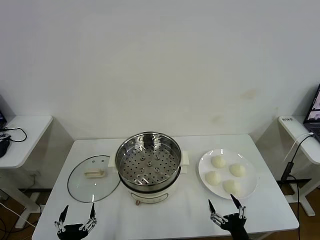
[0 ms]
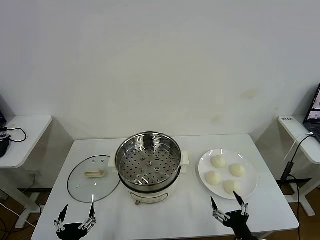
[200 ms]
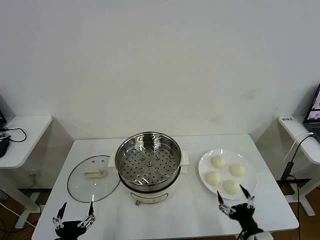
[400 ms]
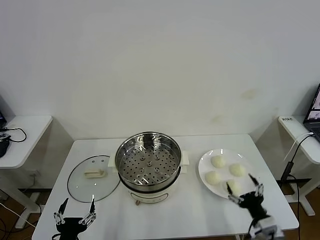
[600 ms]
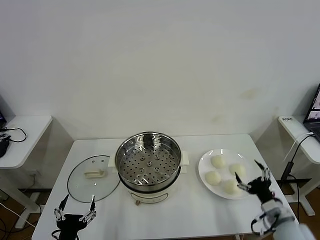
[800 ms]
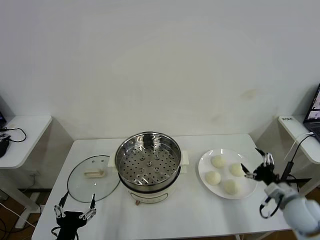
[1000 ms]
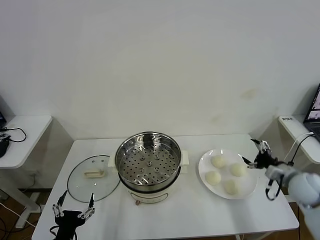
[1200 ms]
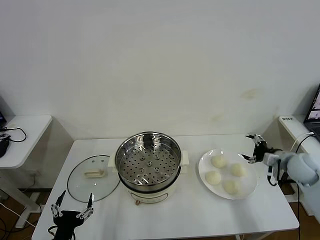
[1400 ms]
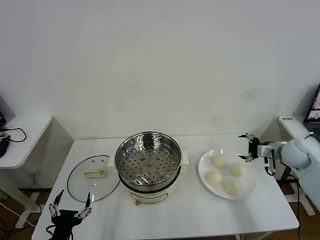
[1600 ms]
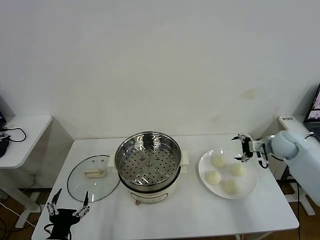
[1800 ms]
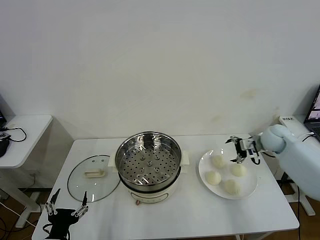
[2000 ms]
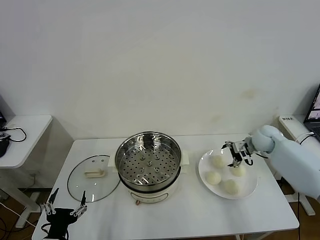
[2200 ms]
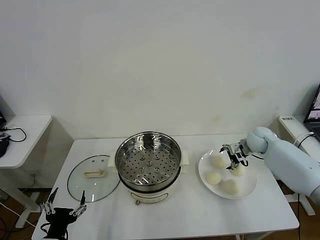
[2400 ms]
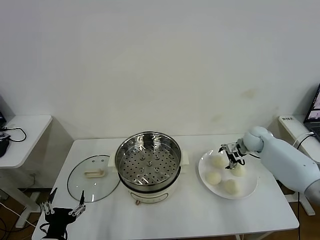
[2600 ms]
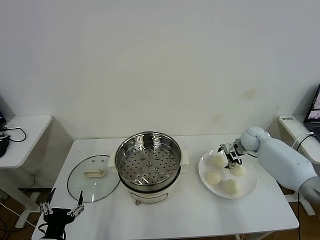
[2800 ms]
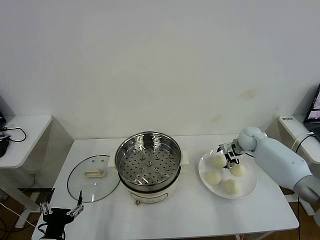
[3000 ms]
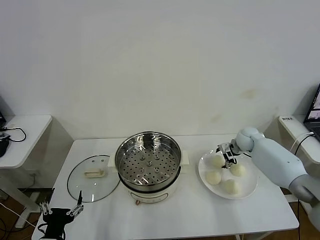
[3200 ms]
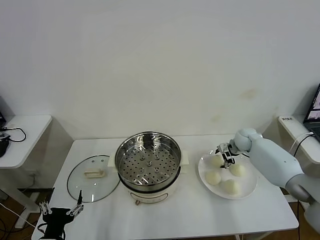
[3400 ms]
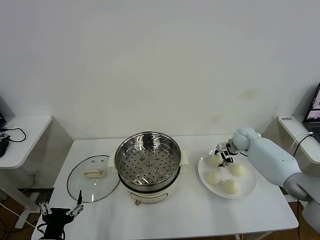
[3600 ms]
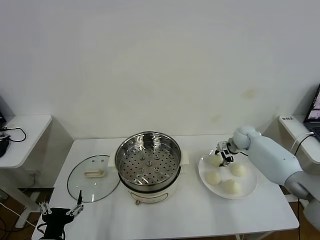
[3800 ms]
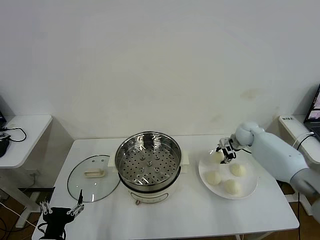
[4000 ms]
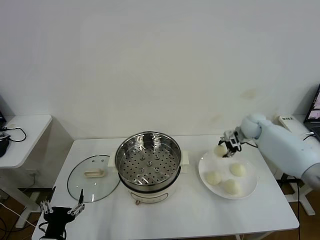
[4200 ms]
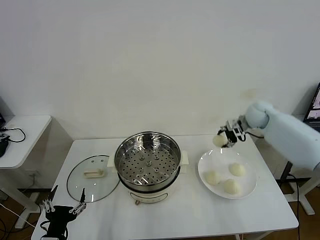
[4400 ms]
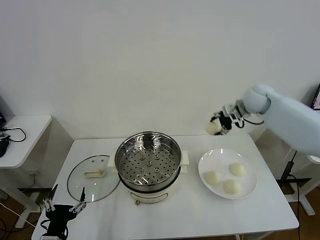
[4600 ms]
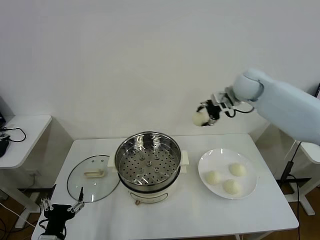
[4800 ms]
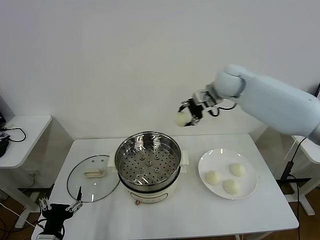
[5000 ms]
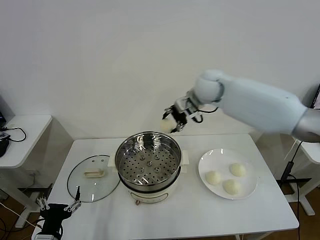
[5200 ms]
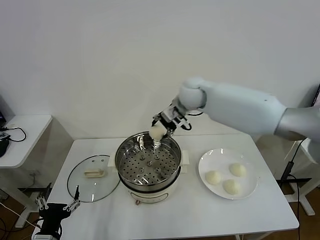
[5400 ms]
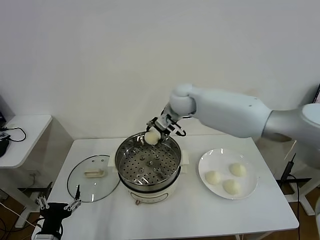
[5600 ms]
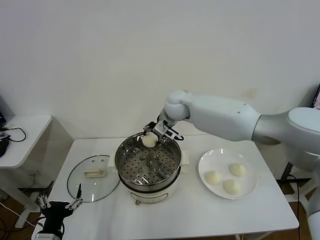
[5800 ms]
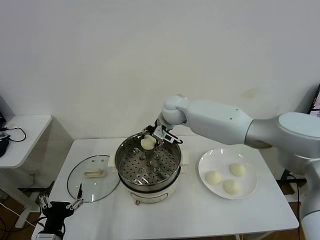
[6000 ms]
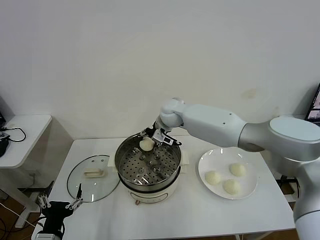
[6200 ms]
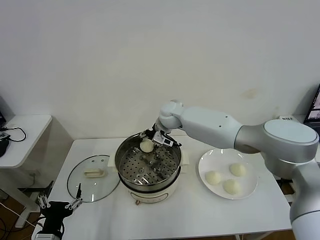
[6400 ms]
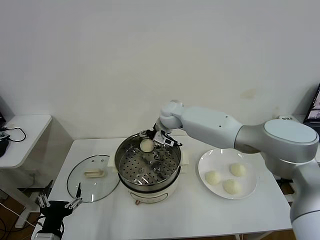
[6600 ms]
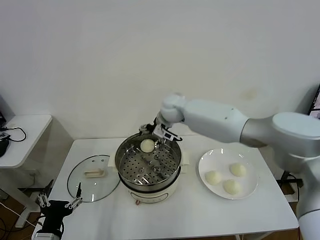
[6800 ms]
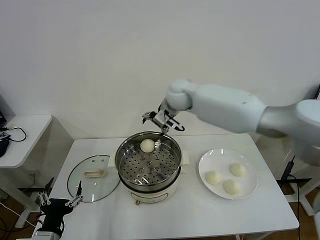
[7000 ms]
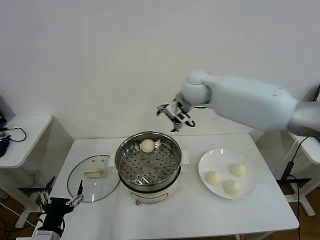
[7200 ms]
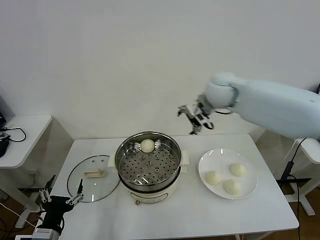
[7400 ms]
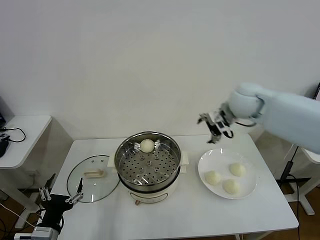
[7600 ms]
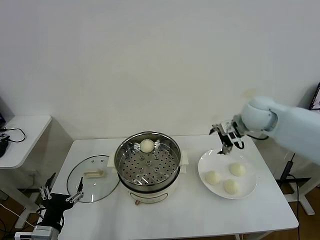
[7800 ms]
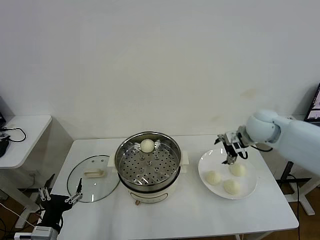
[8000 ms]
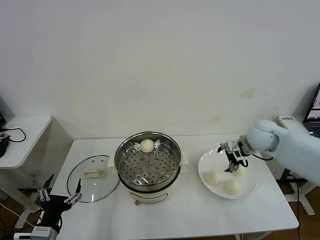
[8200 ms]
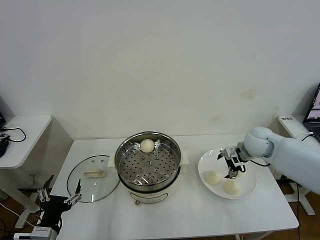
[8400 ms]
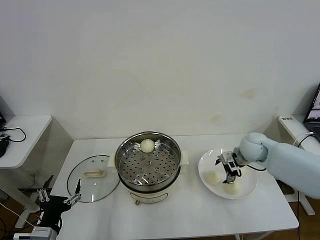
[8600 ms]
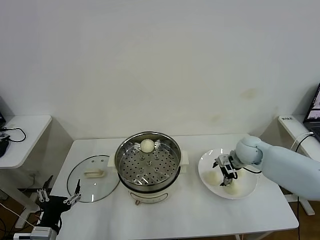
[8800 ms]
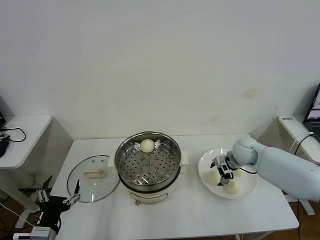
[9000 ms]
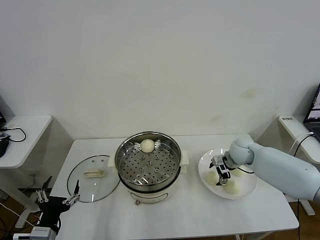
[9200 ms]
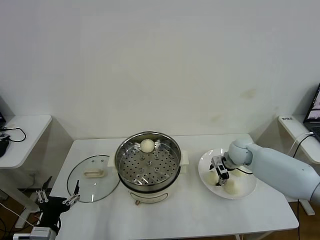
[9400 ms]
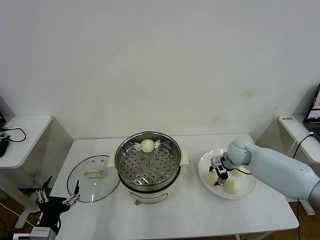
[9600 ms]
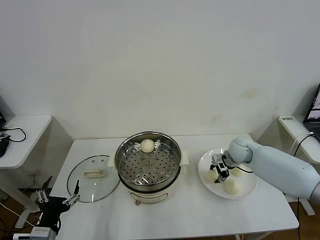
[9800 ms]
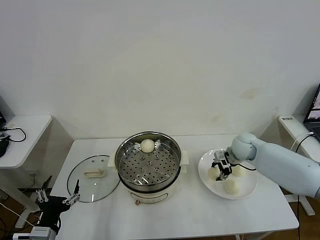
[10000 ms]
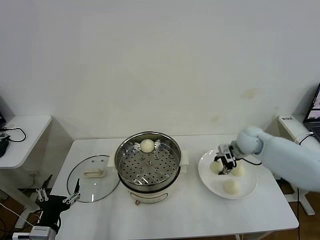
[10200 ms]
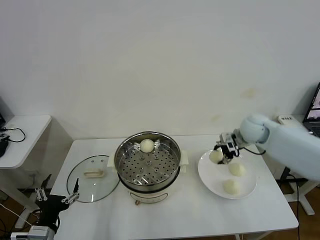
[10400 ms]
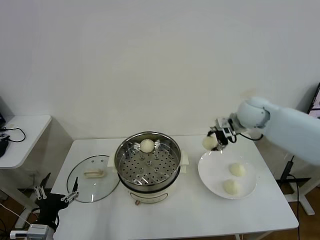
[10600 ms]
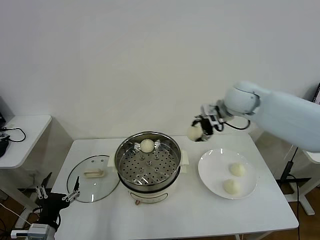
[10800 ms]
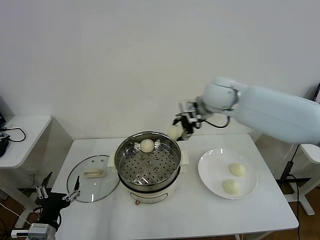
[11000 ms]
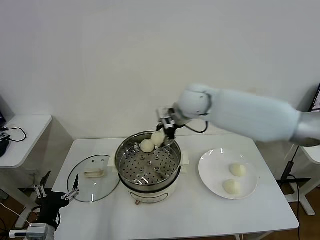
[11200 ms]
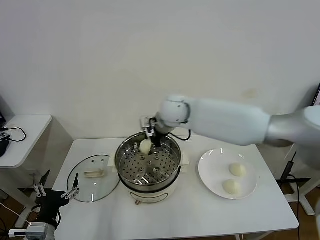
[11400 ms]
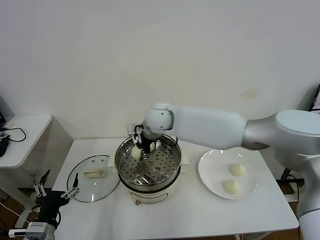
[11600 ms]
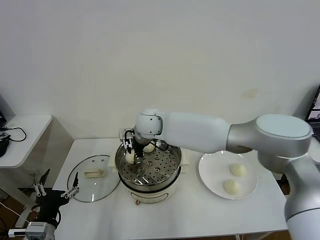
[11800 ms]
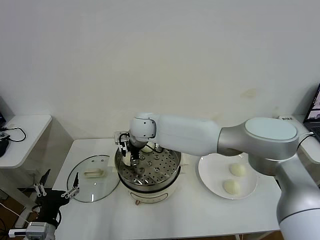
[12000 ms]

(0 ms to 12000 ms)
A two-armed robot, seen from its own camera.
Task of the whole recording: take steamed baozi put them in steamer then cover it.
Step, 0 ms - 3400 ms: Grasp the baozi in the plate with right gripper.
Step, 3600 ms - 6400 ms: Place the baozi on the steamer with right gripper.
Step, 6600 ms - 9600 ms: Grasp the baozi in the plate with right gripper.
1600 ms - 3000 ms: The right gripper goes roughly 15 cm forward, to the left and downward.
3000 ms - 4400 ms: The right gripper heads upward, covering approximately 15 cm, and closes.
4400 ms - 6000 ms: The right gripper travels to the left by some 30 cm.
6000 ms - 7600 ms: The right gripper is displaced to the right by approximately 20 cm, and opens up.
7600 ms - 9000 ms: The right gripper moves downward, roughly 20 cm.
9000 ms - 10400 ms: The right gripper heads upward, covering approximately 10 cm, and closes its fingers.
10400 ms - 12000 ms: The right gripper travels to the left by roughly 35 cm.

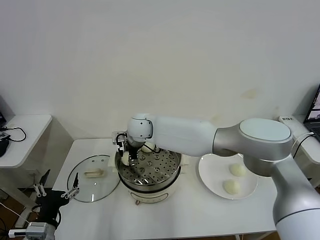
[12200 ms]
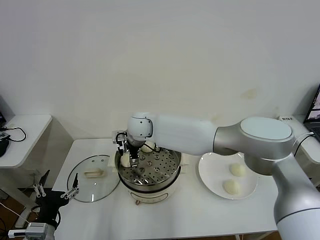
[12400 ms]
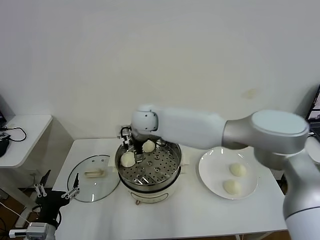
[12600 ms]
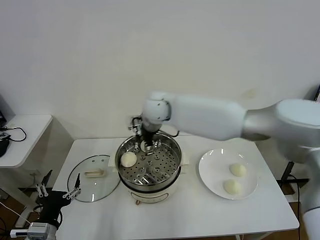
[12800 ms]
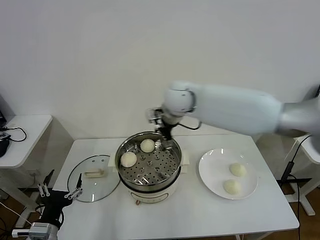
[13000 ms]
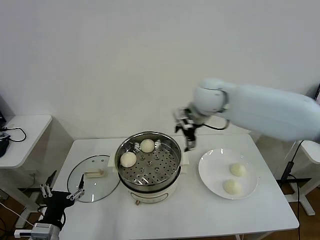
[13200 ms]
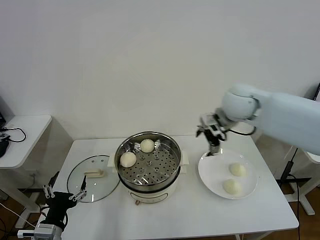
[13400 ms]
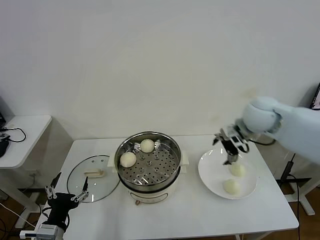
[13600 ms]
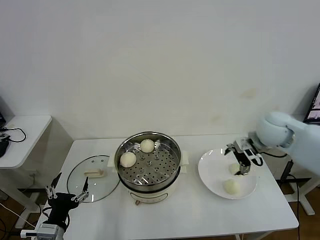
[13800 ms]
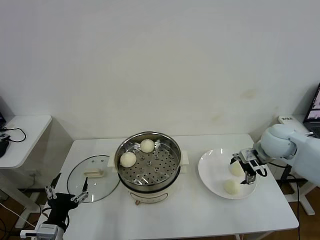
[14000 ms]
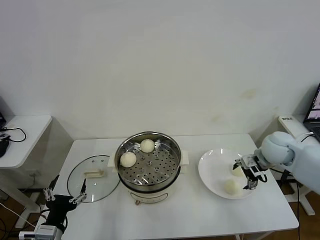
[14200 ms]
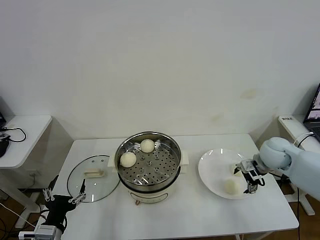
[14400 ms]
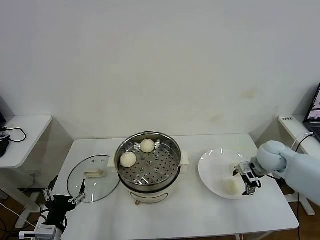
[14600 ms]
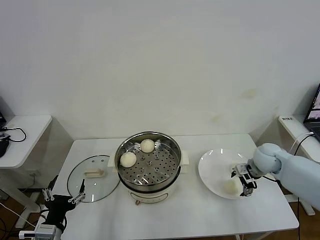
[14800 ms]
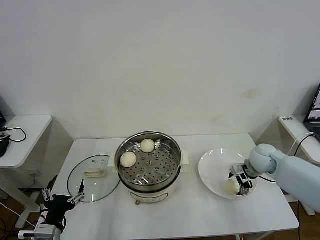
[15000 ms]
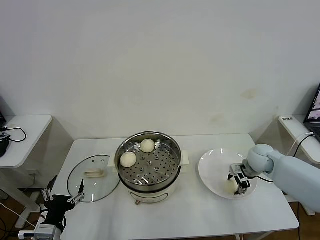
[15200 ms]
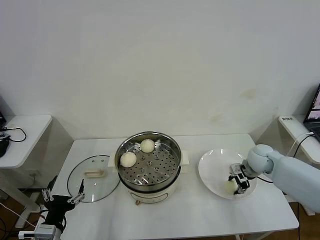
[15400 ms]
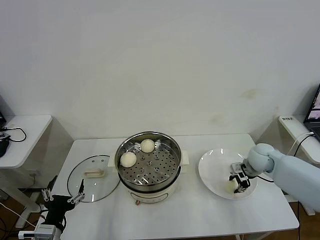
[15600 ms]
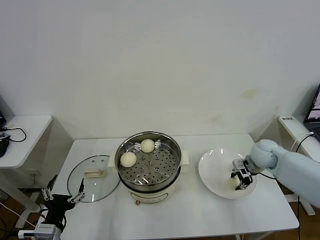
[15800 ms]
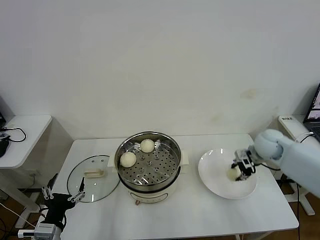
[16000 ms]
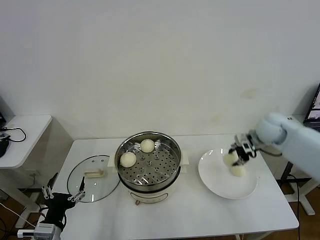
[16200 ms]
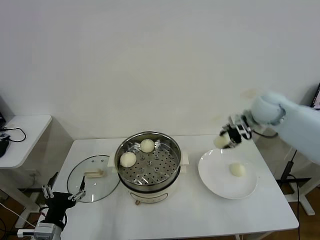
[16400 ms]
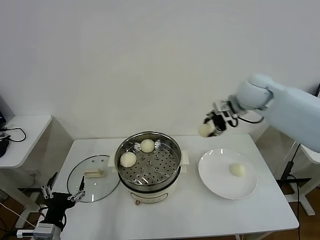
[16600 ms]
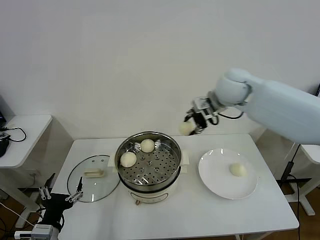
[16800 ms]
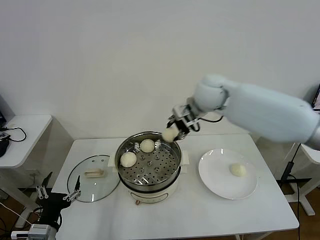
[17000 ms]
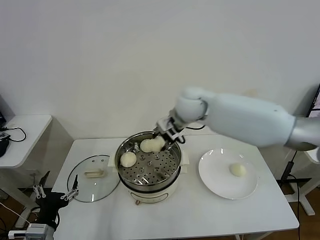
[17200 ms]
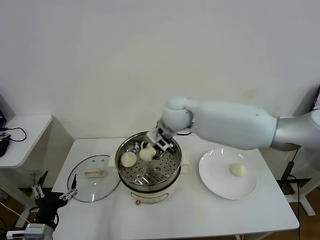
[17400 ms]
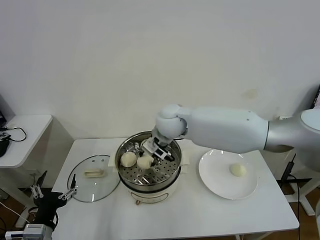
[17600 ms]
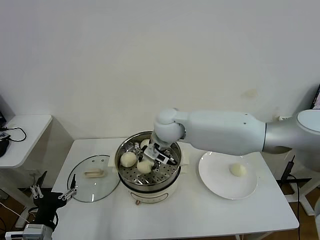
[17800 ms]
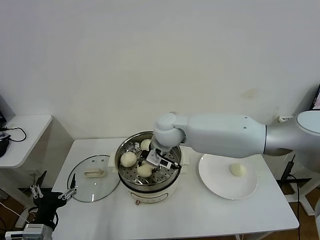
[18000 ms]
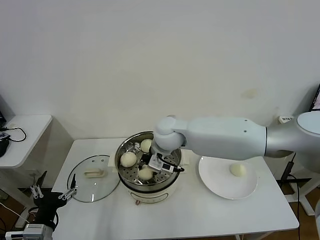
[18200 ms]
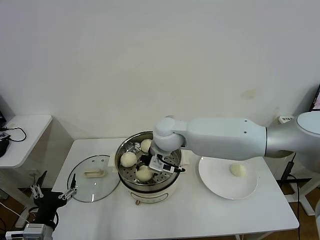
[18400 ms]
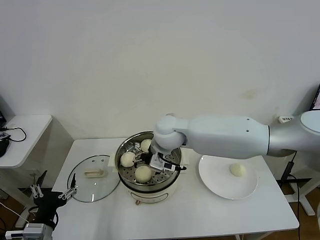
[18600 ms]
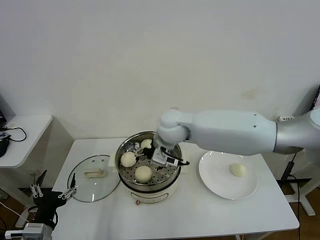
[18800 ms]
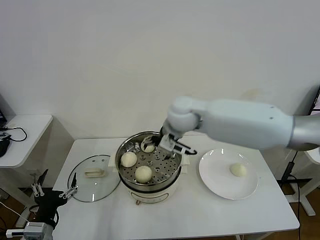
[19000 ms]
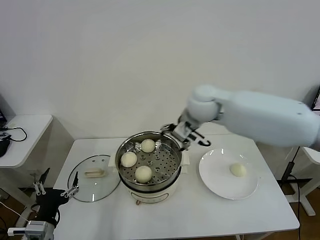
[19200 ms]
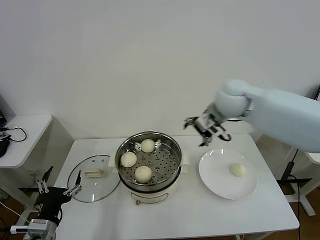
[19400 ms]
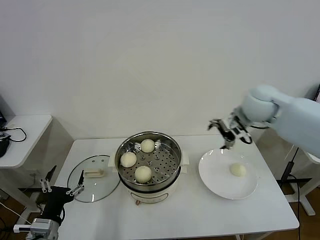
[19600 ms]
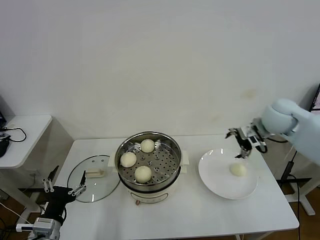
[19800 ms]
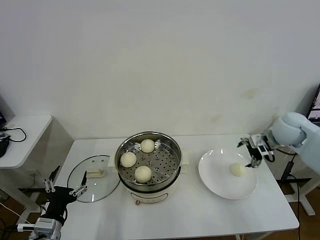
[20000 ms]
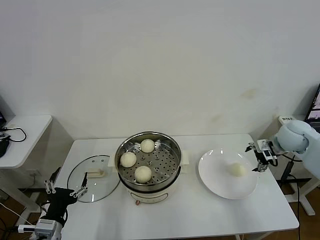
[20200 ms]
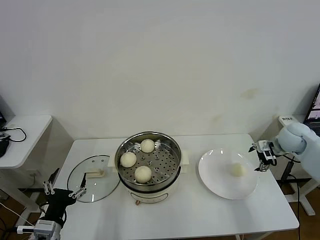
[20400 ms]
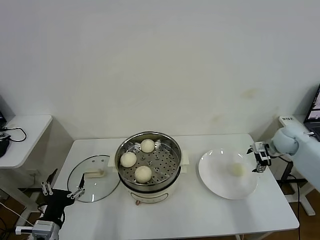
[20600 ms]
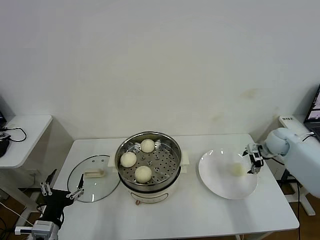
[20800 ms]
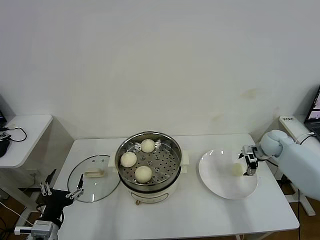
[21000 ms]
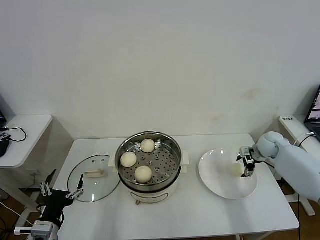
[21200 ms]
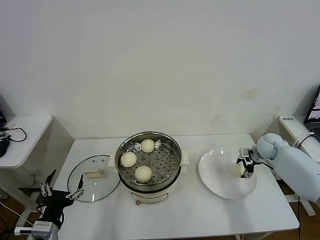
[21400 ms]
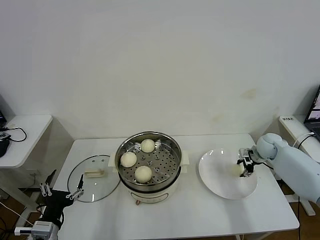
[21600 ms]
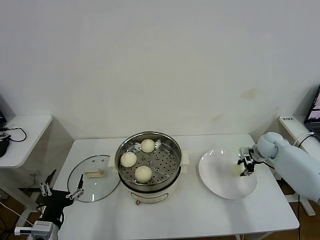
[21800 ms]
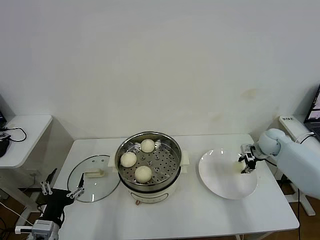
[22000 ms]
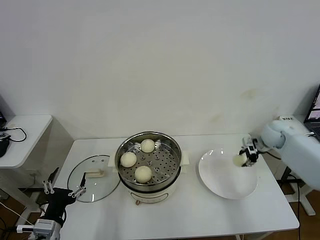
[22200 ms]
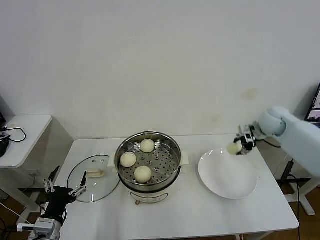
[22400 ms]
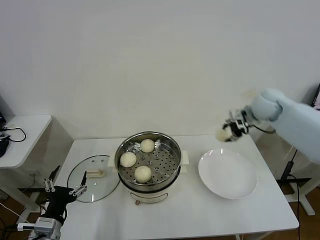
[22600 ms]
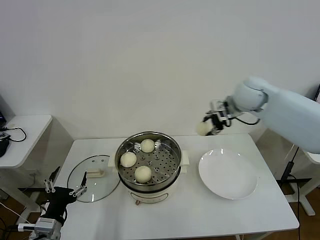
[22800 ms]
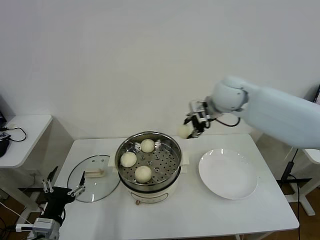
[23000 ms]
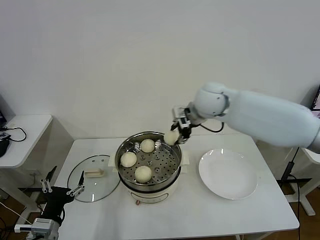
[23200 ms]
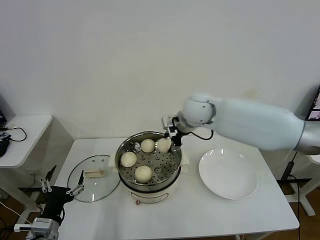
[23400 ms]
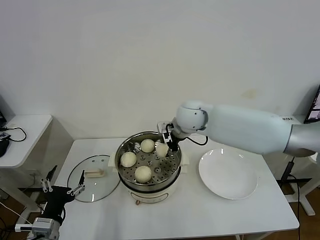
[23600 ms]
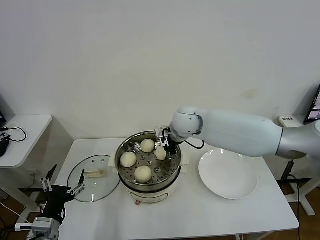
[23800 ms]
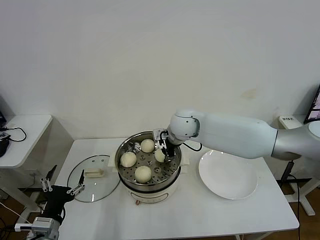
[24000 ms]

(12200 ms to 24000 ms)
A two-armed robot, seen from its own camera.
Task of the whole recording: take steamed baozi put them in steamer then cover it.
Step, 12400 ms - 15400 ms: Grasp the baozi in the plate with right gripper.
Step, 15600 ms - 18400 ms: Place the baozi on the steamer with right gripper.
Step, 18600 ms - 21600 ms: Grasp the baozi in the plate with right gripper.
12200 ms - 13600 ms: The right gripper shifts about 35 cm to the right, and opens up.
13600 ms - 15200 ms: The right gripper heads downward, covering some 20 cm, and closes up.
15200 ms - 16600 ms: The right gripper travels upward and to the left by approximately 25 cm, and closes.
16600 ms - 18200 ms: The right gripper travels to the left and downward by some 25 cm.
18200 ms - 19600 ms: The right gripper shifts roughly 25 cm to the right, and opens.
19600 ms - 21000 ms: The right gripper is displaced downward and to the right by some 25 cm.
21000 ms - 22600 ms: The right gripper travels upward and to the left by about 20 cm, and closes up.
22600 ms - 24000 ms: The right gripper shifts about 25 cm to the left.
